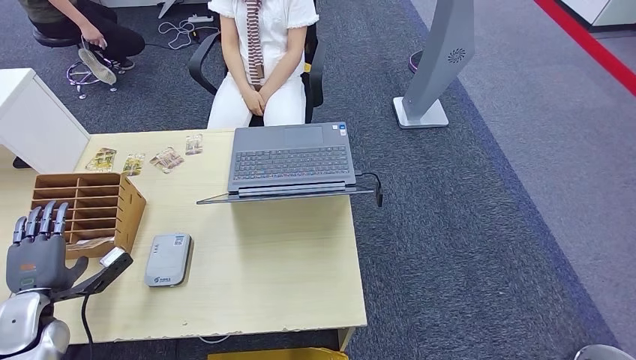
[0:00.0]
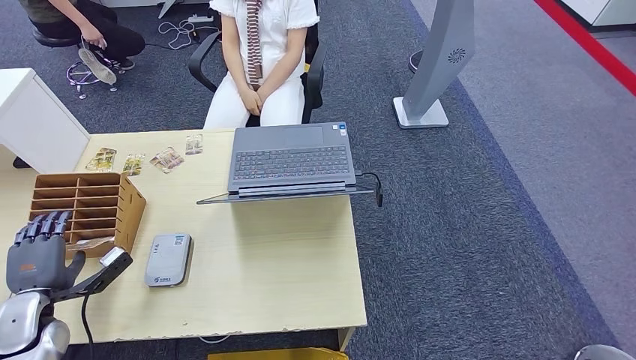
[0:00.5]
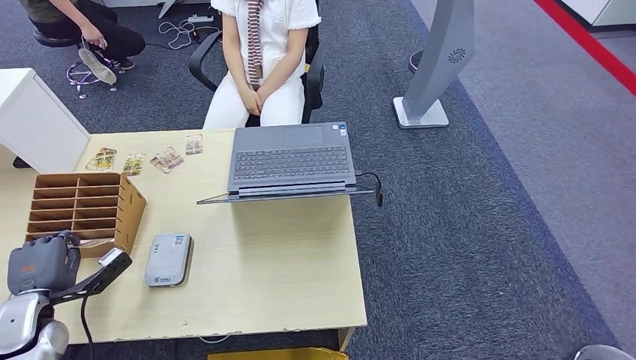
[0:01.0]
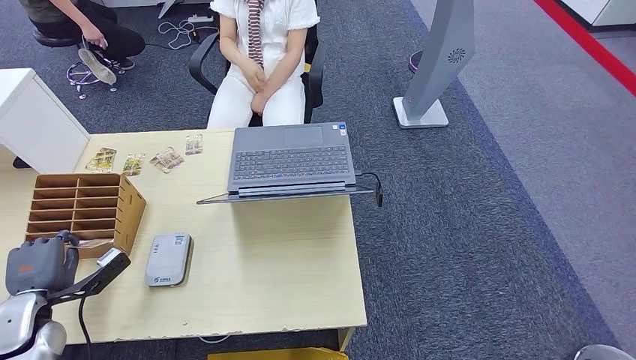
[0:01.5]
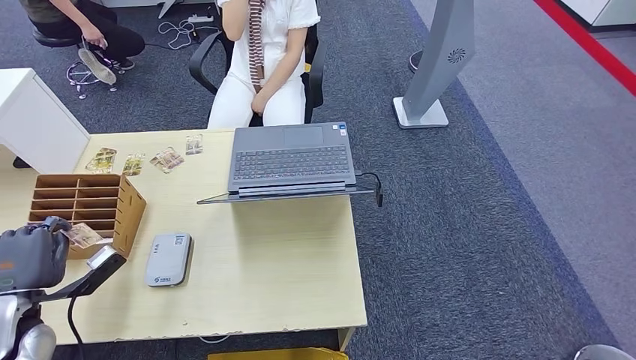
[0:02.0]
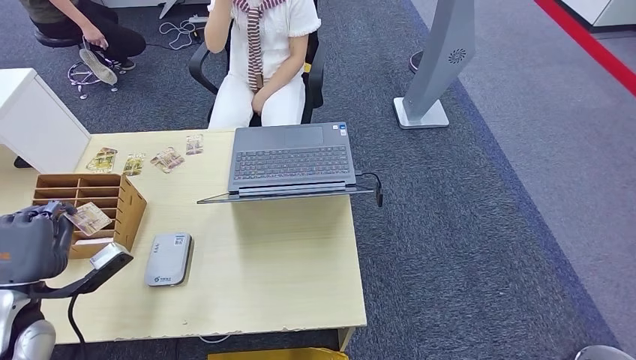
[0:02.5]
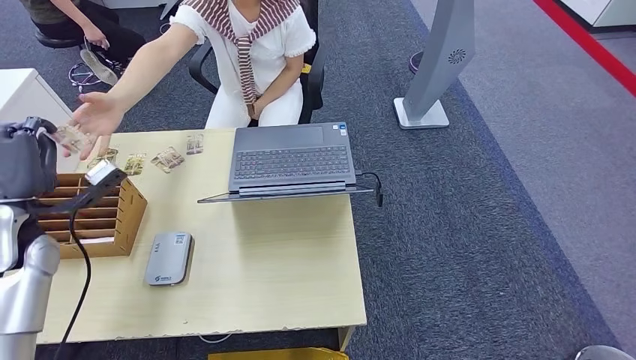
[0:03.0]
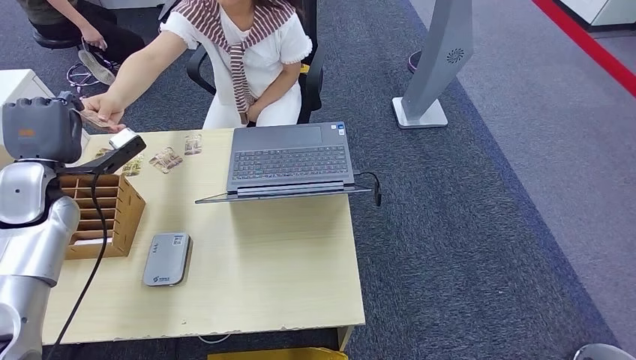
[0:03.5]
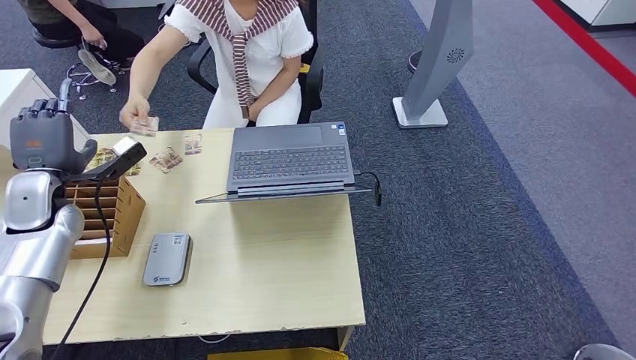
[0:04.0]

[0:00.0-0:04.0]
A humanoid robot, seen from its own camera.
Step, 0:00.0 to 0:02.0: Pick up the room key from the key card box.
Step, 0:02.5 to 0:04.0: Hand the room key to the person.
0:00.0 to 0:02.0: The hands stay close to where they were, moving slightly.
